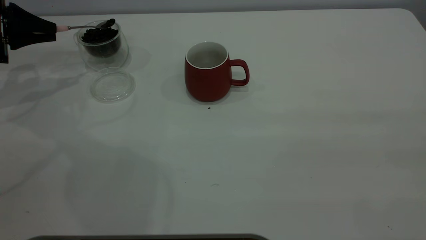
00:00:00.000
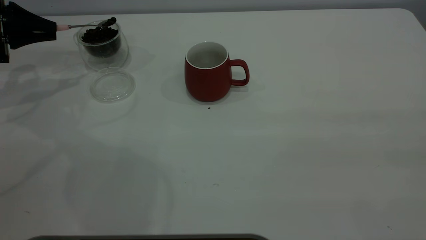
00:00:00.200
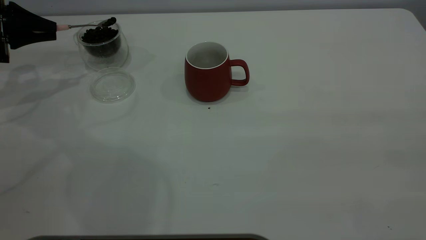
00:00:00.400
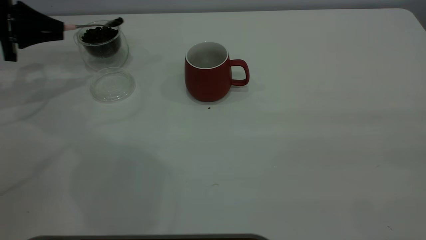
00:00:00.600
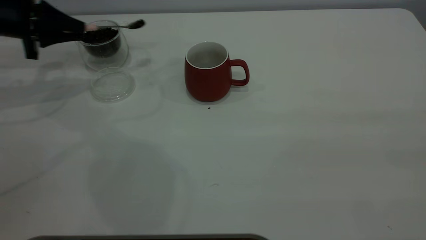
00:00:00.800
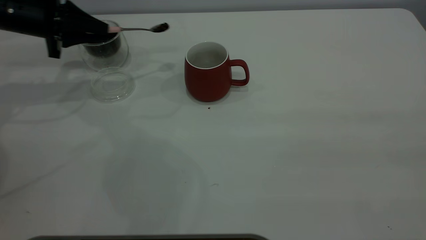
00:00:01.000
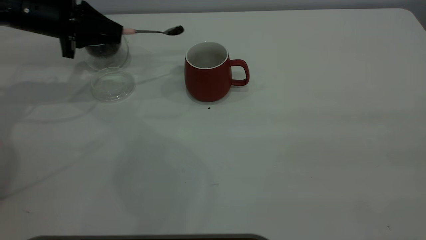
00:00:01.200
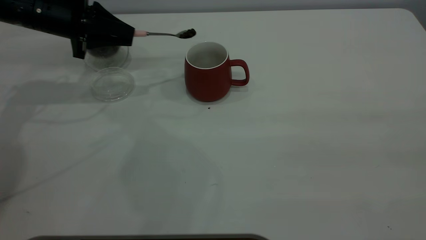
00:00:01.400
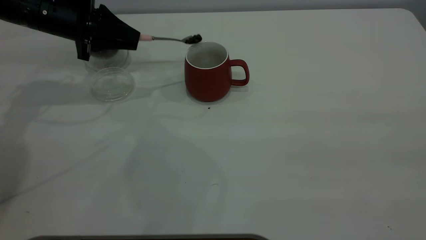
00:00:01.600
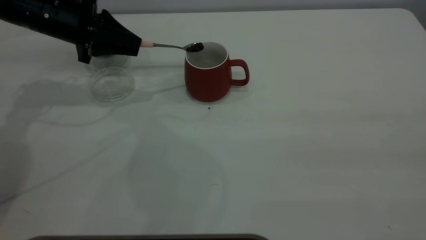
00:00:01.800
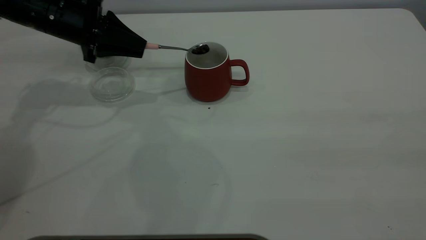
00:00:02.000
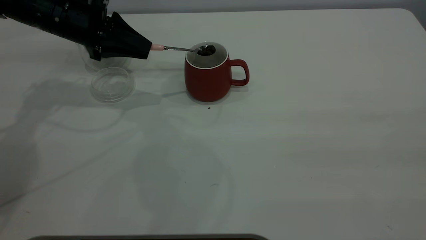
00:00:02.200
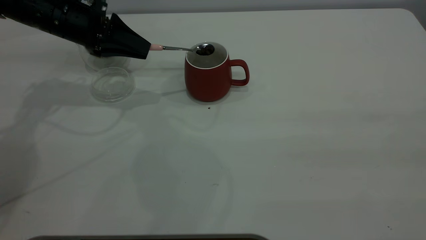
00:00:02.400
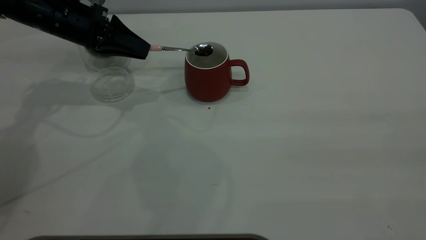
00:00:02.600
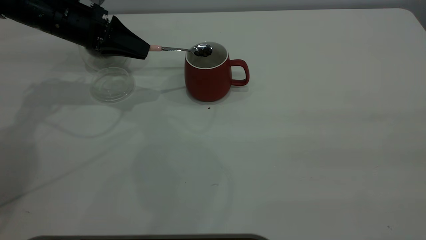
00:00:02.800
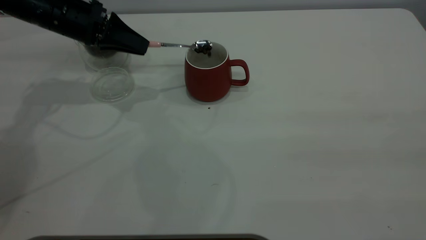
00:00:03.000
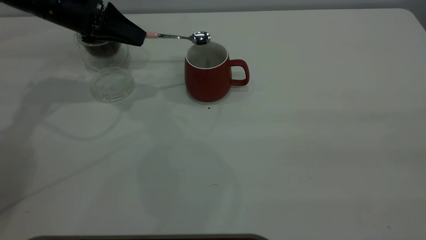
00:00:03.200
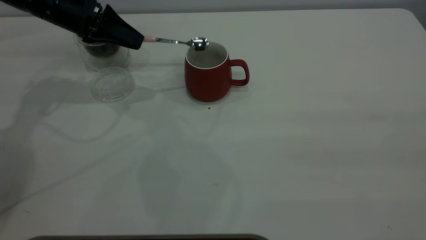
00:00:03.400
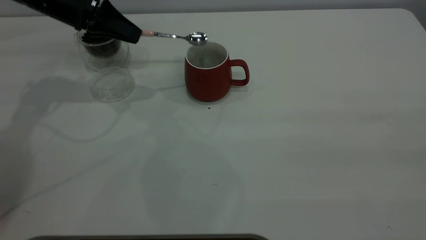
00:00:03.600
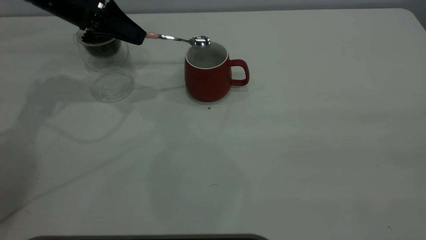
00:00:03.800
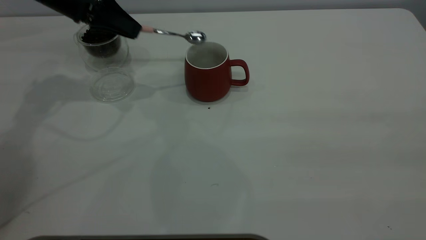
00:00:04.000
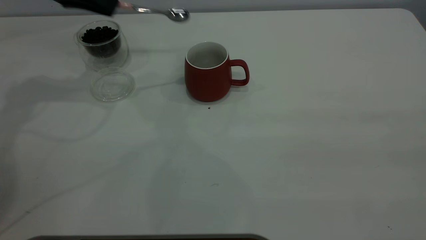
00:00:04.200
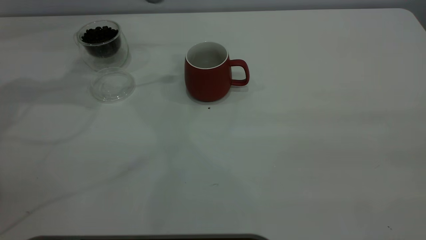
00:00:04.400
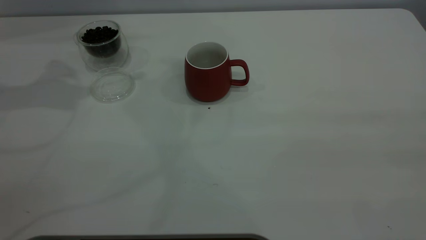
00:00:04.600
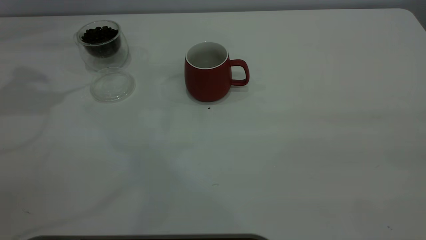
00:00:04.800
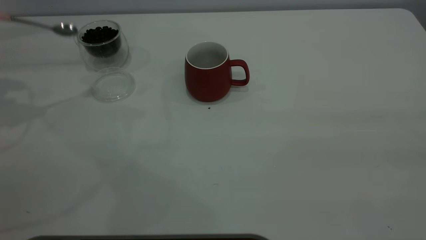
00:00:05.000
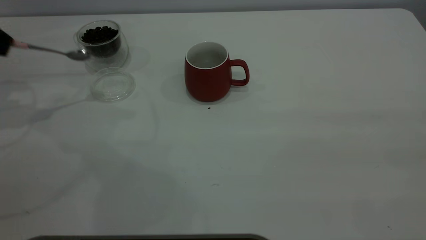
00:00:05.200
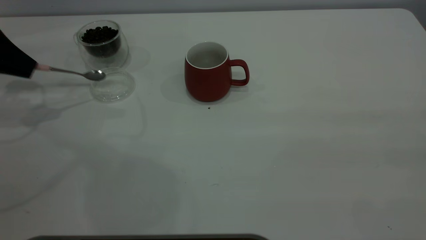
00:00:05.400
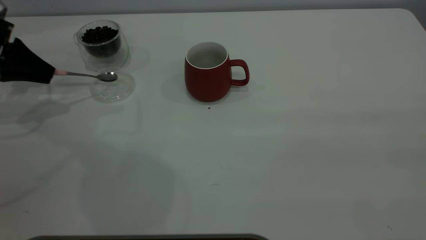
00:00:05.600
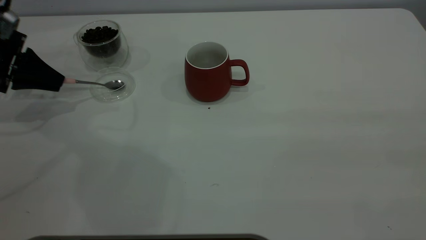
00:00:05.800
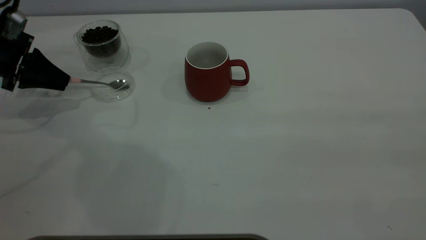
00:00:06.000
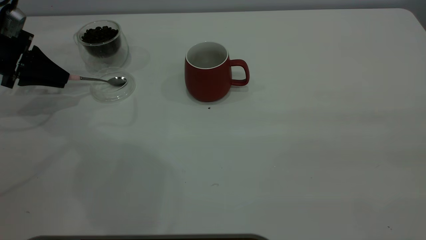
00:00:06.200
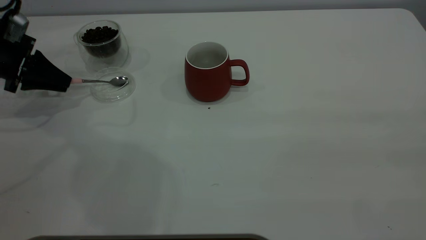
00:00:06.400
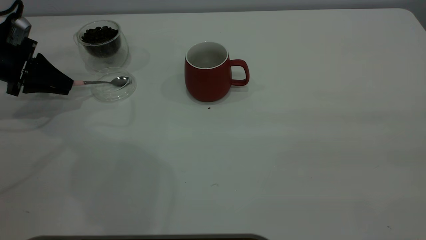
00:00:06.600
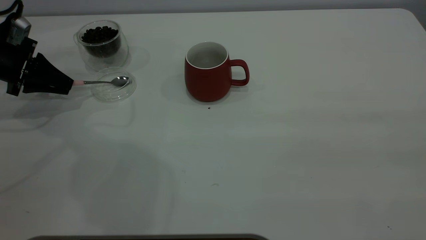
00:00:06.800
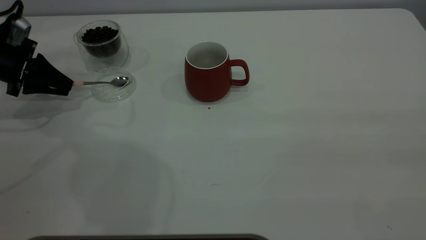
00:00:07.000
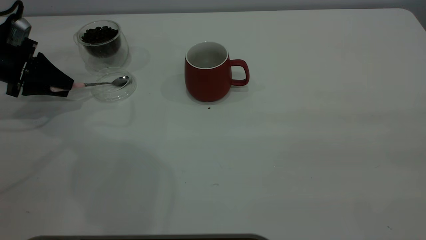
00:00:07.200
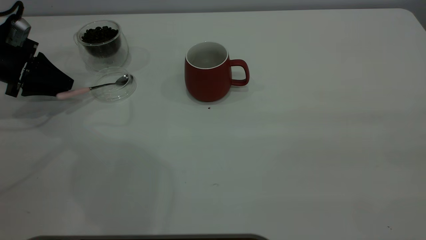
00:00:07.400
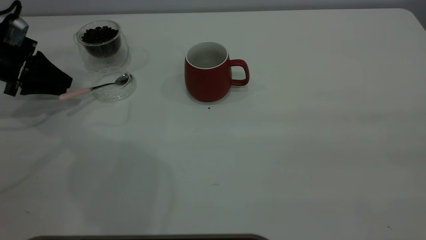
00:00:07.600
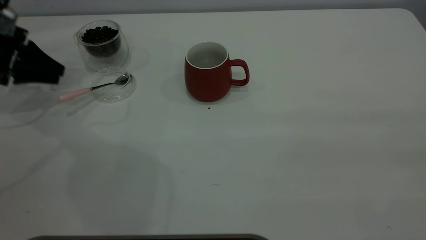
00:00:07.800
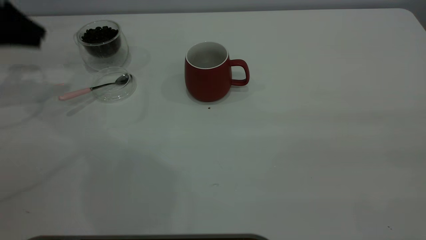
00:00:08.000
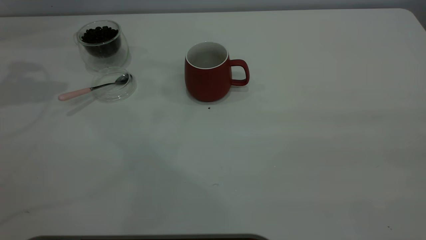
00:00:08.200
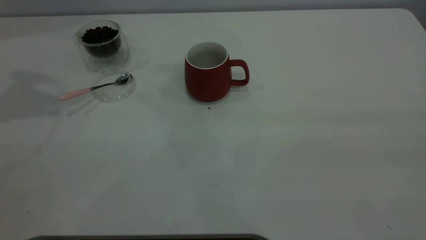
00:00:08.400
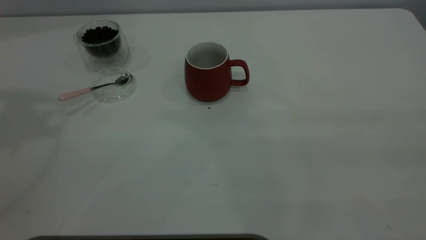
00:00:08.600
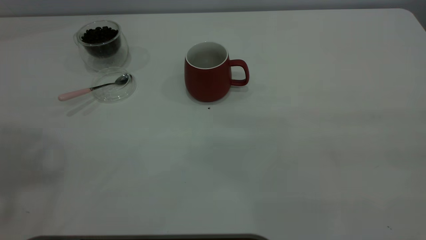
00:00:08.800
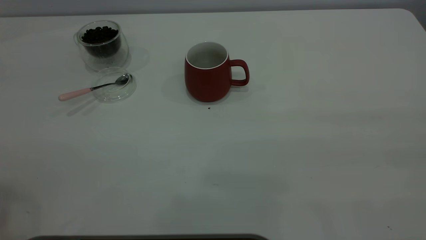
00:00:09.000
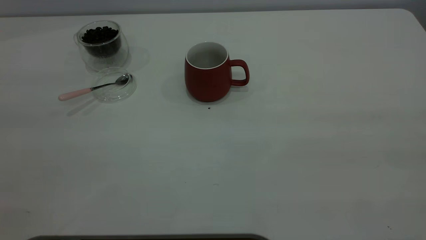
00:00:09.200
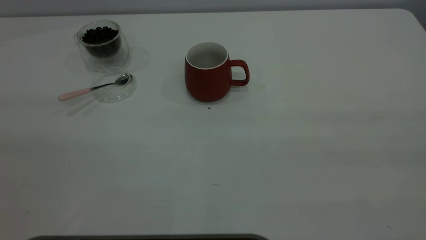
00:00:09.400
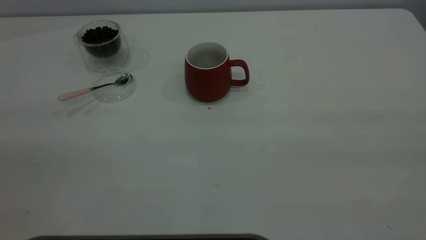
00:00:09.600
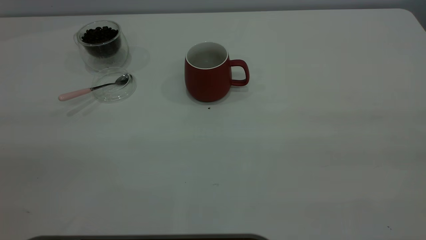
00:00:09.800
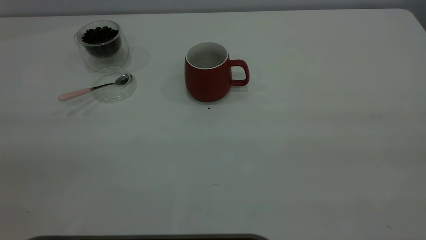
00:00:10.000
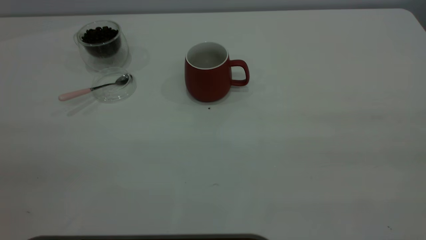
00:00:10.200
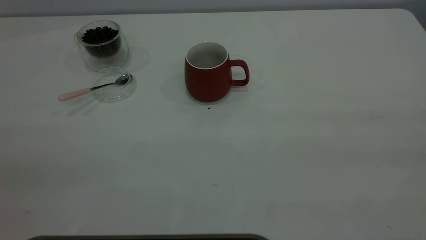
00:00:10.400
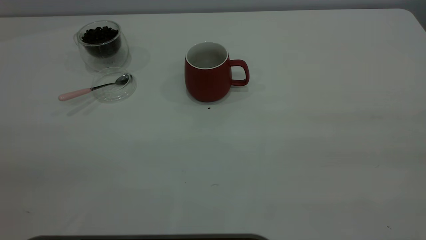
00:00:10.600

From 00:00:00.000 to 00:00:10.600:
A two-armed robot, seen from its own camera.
Task of the whole recording: the right gripper place the red cup in the center of the table, the left gripper take the pink spoon from the cup lid and scoop out the coffee beans from the coffee cup and put them into the red cup, the left gripper put the spoon back into the cup lid.
Step, from 00:00:00.000 to 00:00:04.000: Scoop a spoonful of beans into the cup.
Step, from 00:00:04.200 to 00:00:08.000: Place the spoon back in its original place.
From 00:00:00.000 to 00:00:01.600: The left gripper moves to the right, about 15 cm.
From 00:00:03.000 to 00:00:04.600: The left gripper travels upward and to the left by approximately 20 cm.
From 00:00:04.600 to 00:00:06.000: The left gripper goes approximately 20 cm downward.
From 00:00:06.000 to 00:00:07.600: The left gripper opens.
From 00:00:07.600 to 00:00:09.000: The left gripper heads upward and backward, covering about 50 cm.
